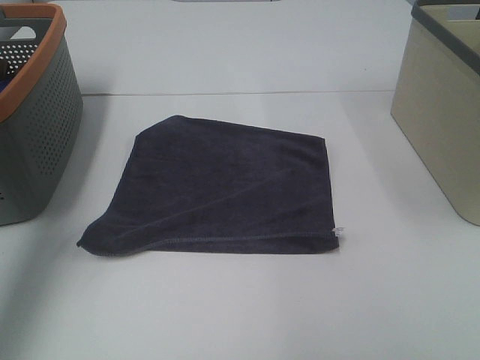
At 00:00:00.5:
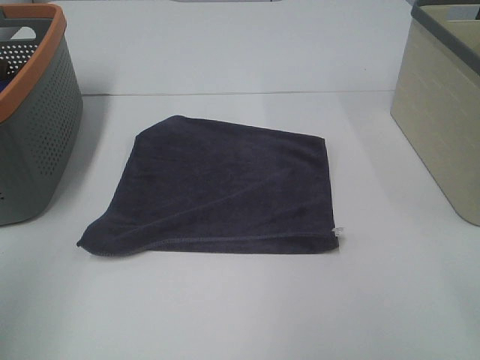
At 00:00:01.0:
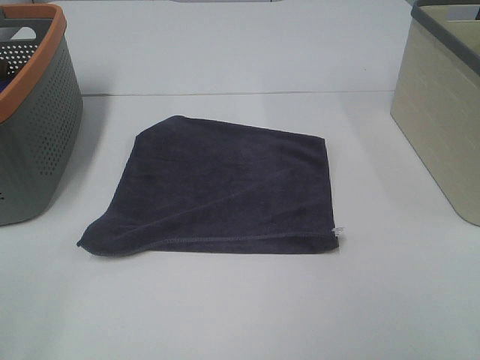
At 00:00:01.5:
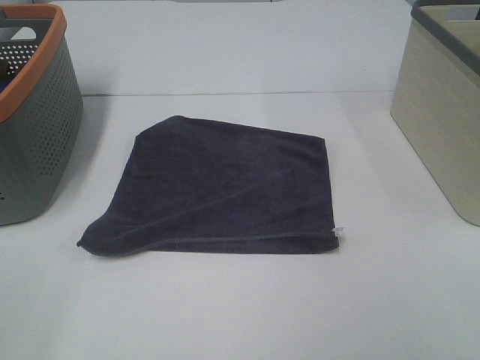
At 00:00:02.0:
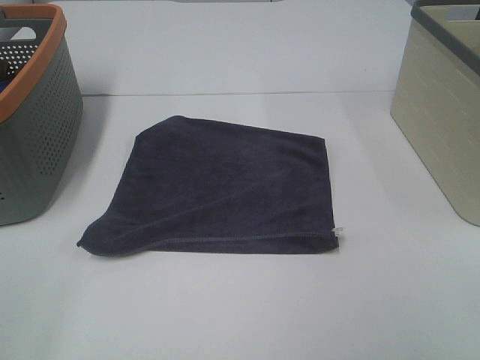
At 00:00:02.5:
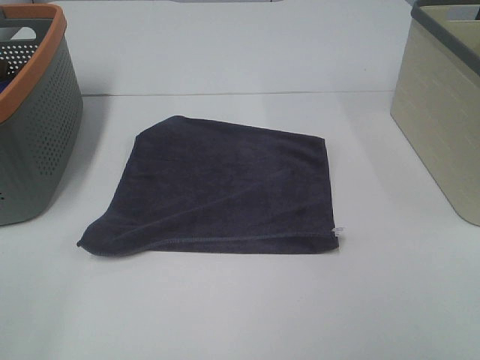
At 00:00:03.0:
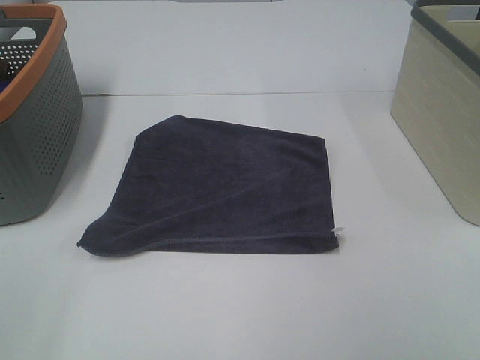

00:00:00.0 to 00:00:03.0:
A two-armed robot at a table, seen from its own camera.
Task of the whole recording: Remove the towel and place it.
00:00:00.0 to 00:00:01.5: The left gripper moves backward and downward, roughly 25 cm.
